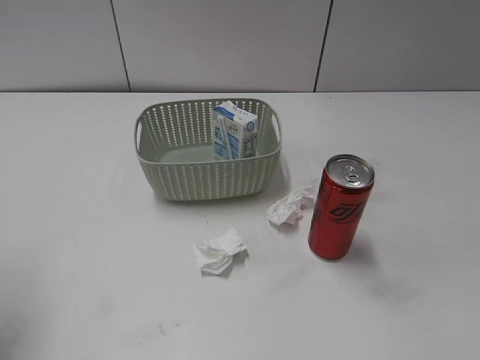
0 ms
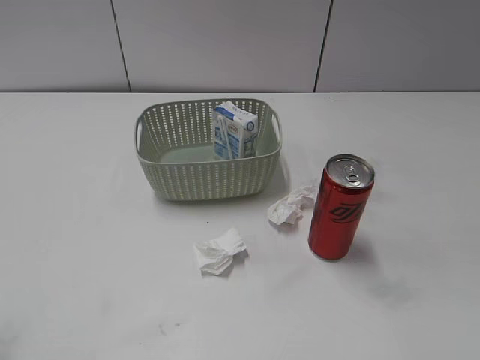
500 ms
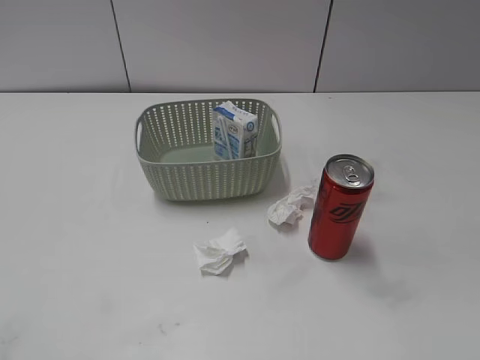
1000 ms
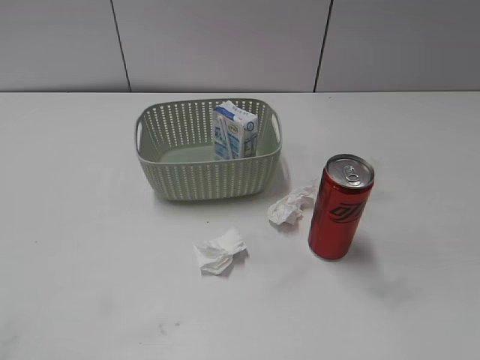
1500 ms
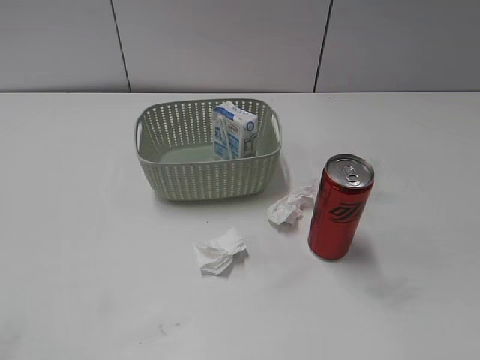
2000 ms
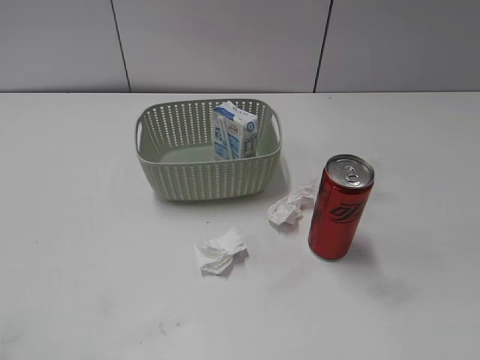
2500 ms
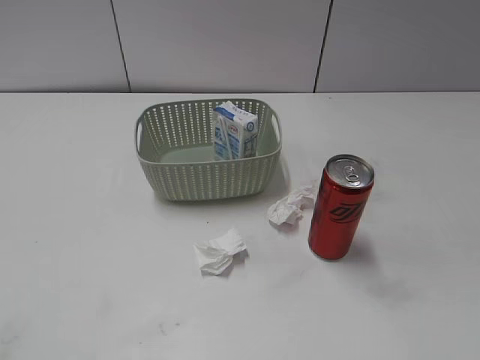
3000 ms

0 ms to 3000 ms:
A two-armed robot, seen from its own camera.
0 ms to 1500 ms: The left gripper moves backward, about 20 cm.
1500 ms to 3000 ms: The two grippers keep their place.

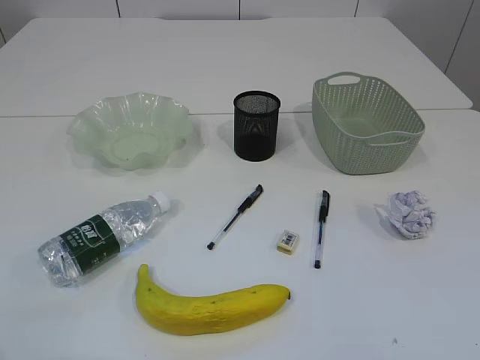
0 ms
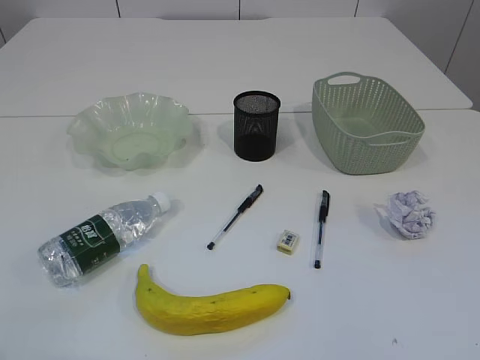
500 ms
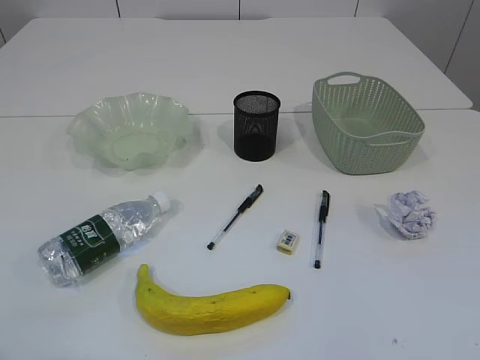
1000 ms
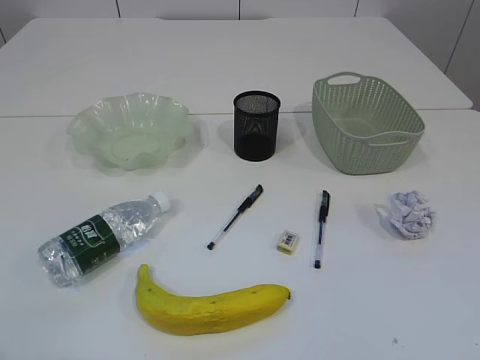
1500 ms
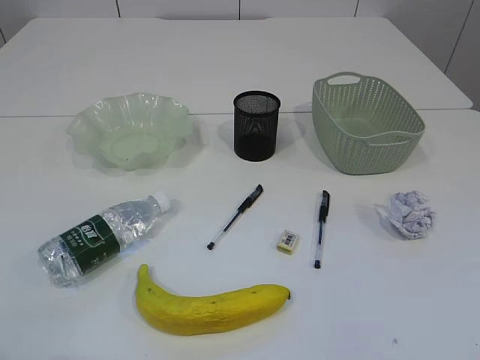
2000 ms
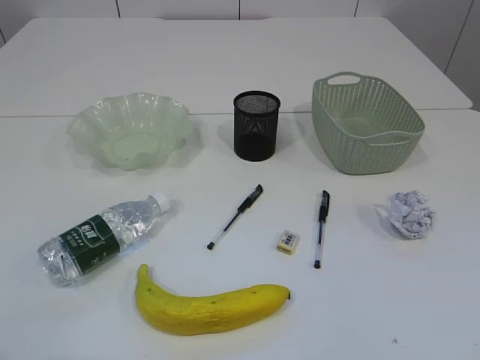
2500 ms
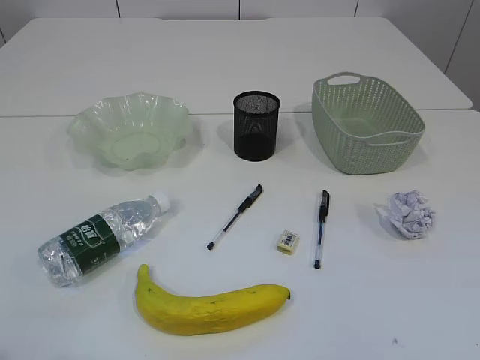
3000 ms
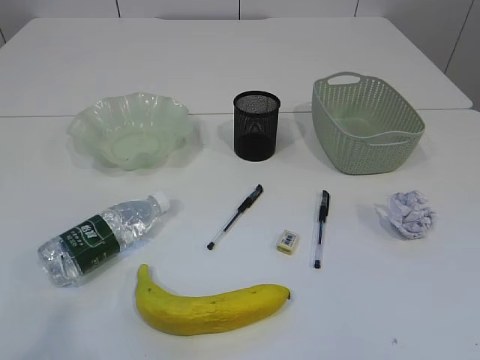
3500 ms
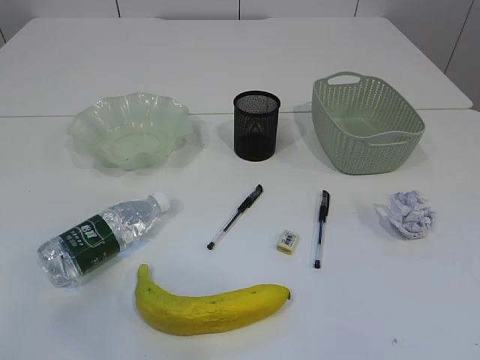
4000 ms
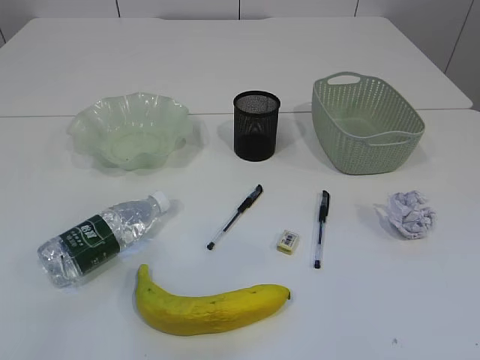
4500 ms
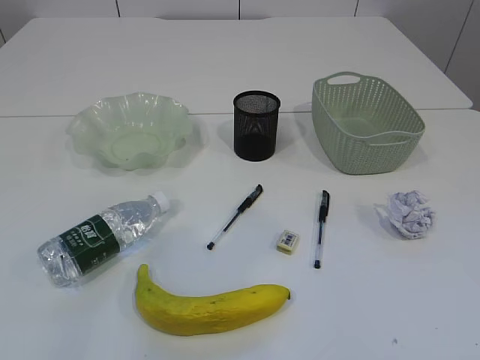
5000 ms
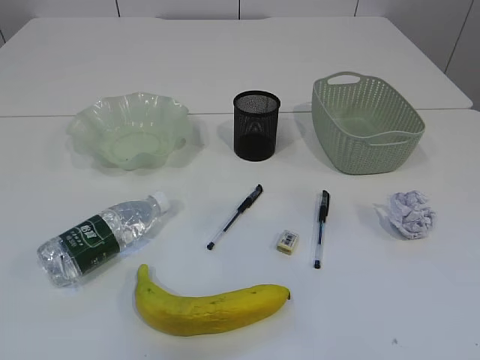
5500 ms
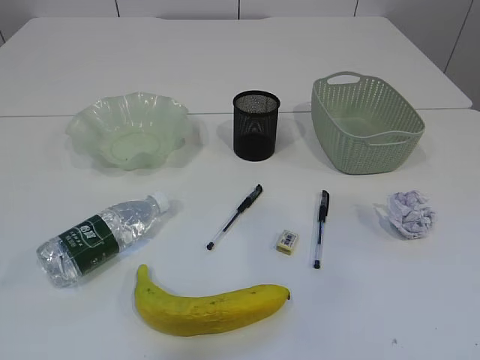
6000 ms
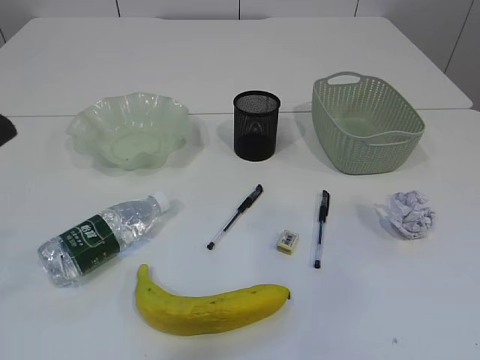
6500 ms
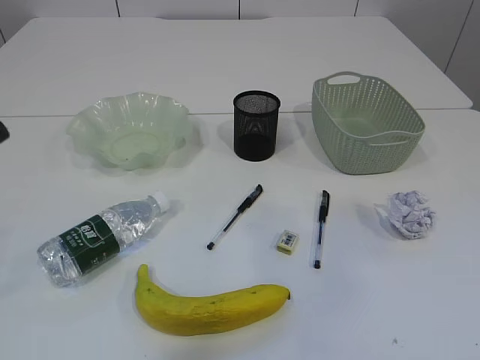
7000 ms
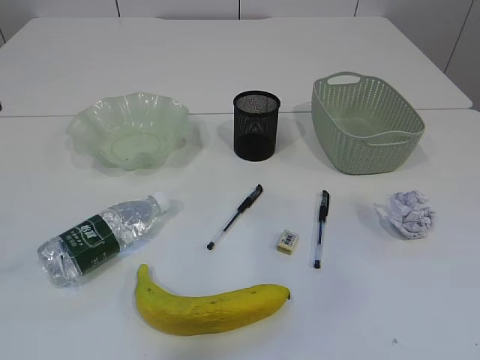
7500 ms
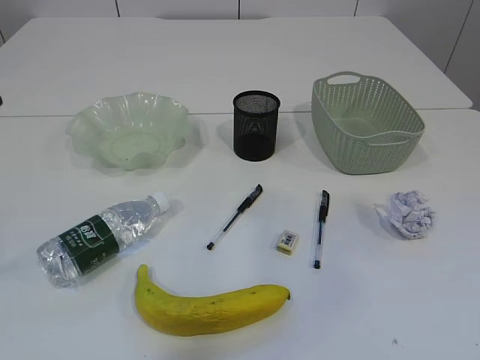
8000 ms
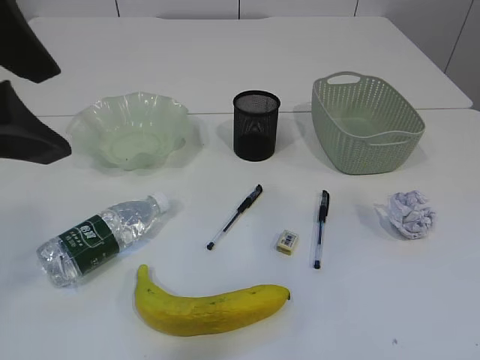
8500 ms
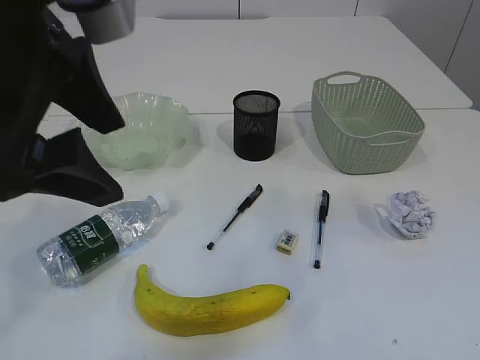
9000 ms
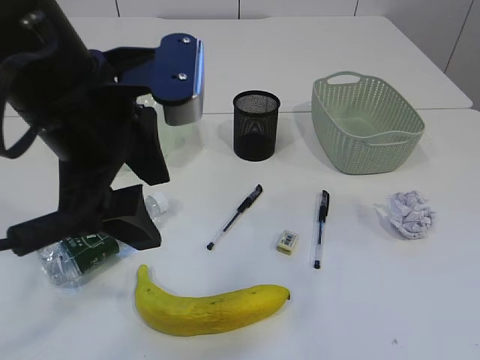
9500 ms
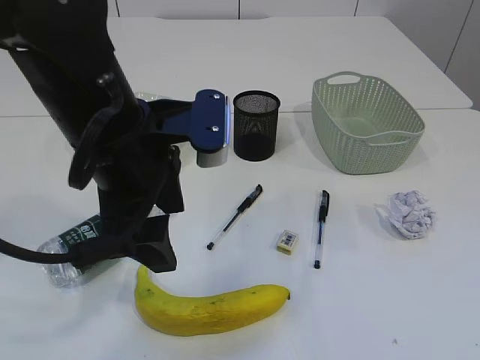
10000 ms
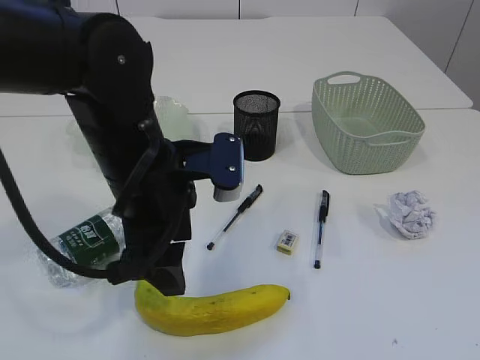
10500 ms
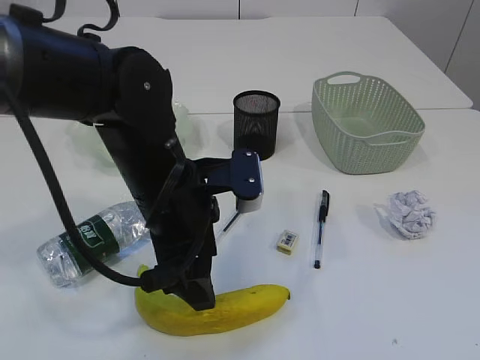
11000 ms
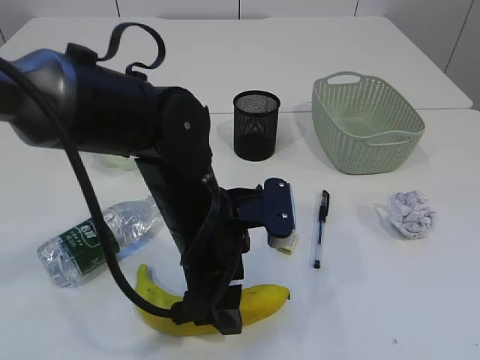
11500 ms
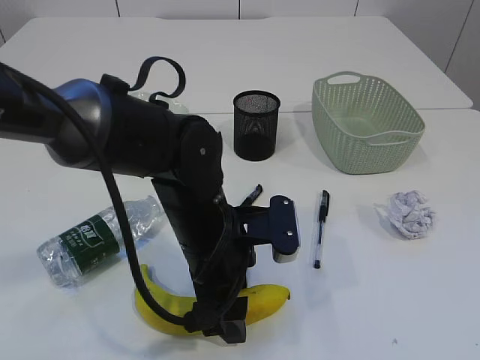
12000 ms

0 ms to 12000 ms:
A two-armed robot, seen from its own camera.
8000 ms to 10000 ms: The left gripper moves downward, forward and to the right, roughly 20 cm.
10000 ms to 12000 ms: The left gripper moves downward and to the right, some 15 cm.

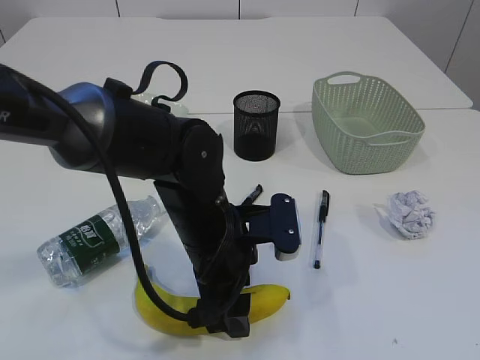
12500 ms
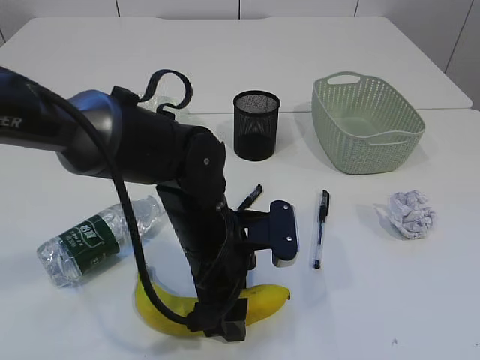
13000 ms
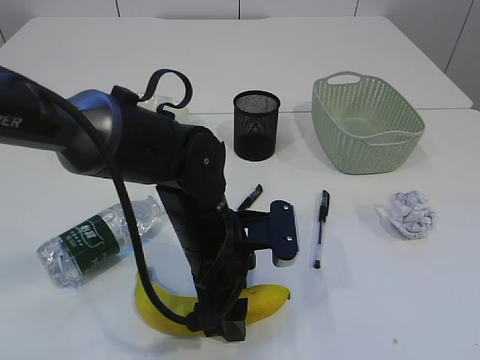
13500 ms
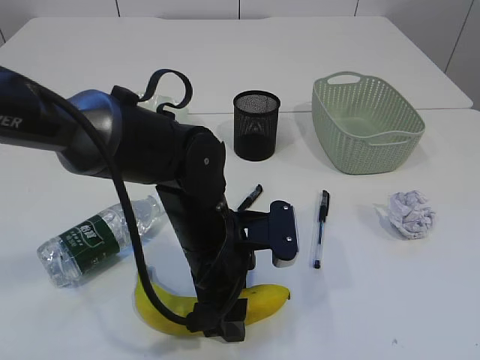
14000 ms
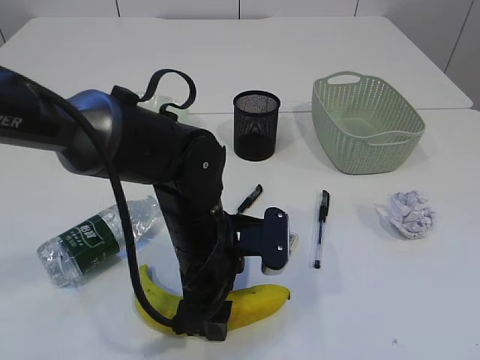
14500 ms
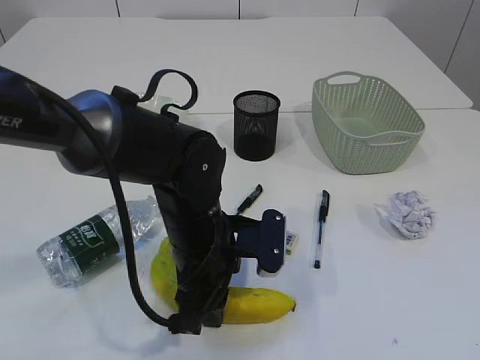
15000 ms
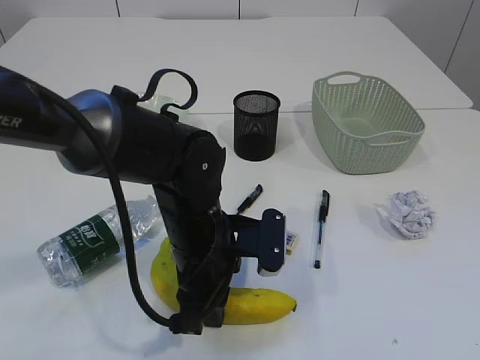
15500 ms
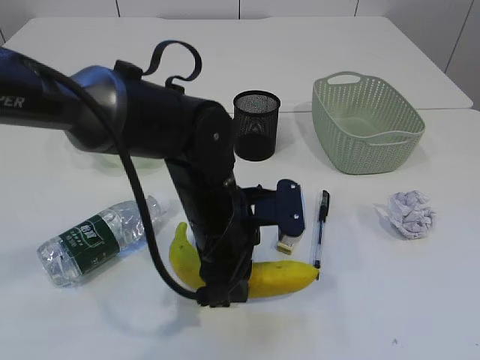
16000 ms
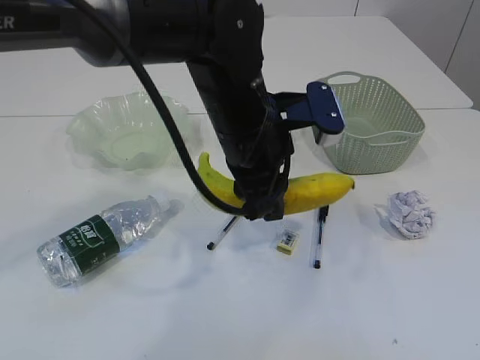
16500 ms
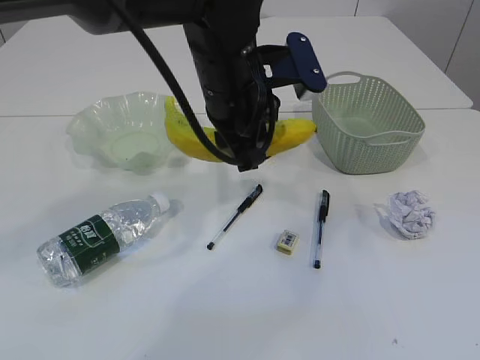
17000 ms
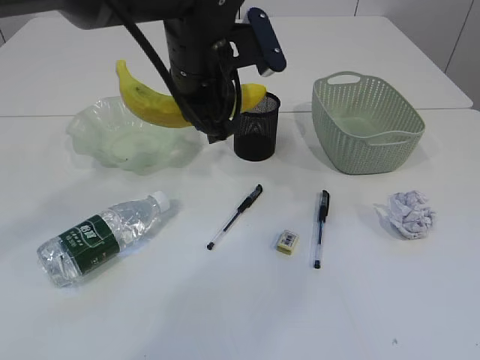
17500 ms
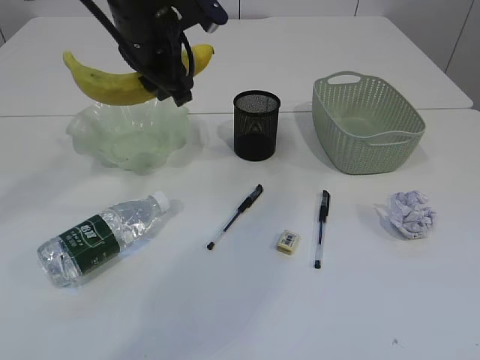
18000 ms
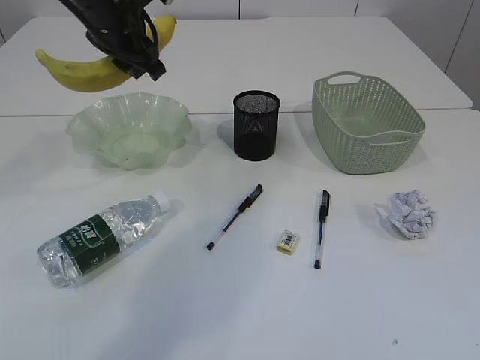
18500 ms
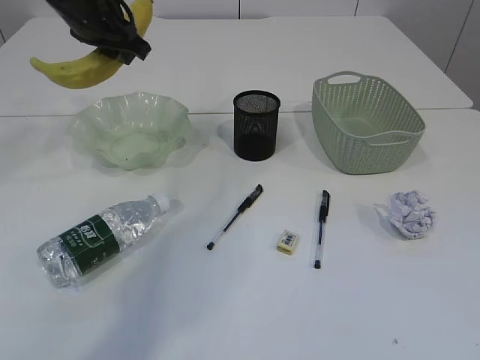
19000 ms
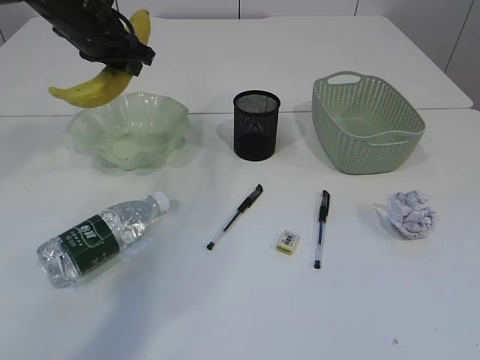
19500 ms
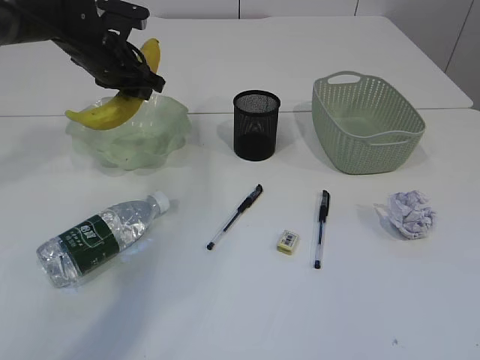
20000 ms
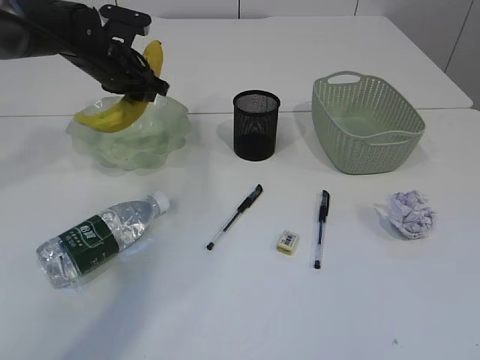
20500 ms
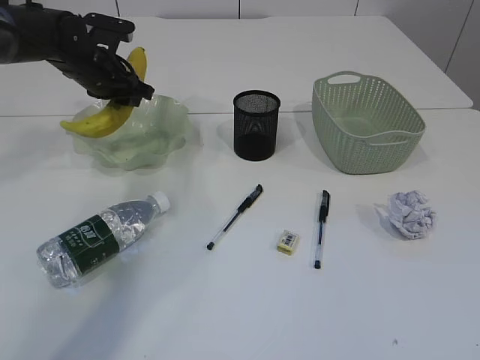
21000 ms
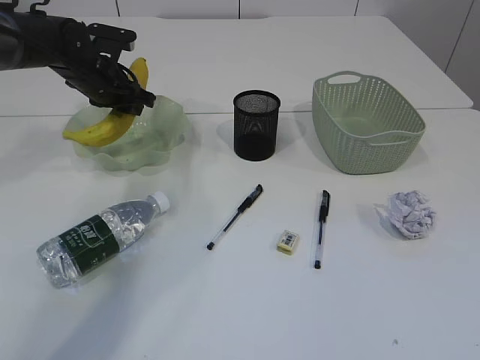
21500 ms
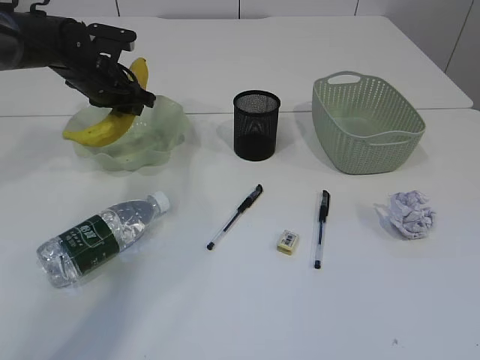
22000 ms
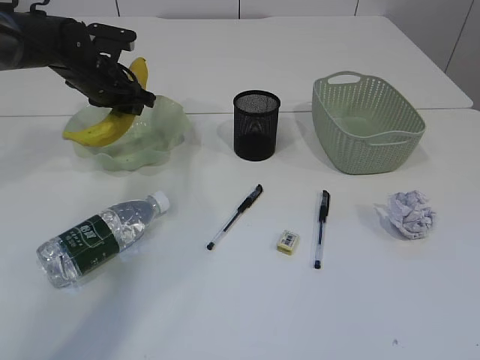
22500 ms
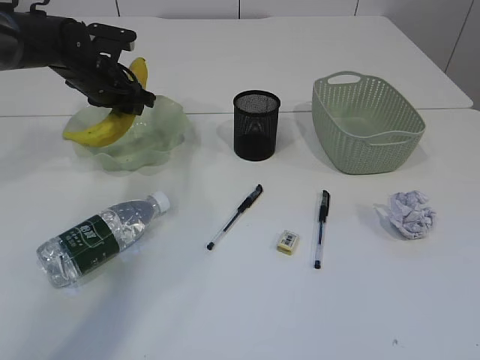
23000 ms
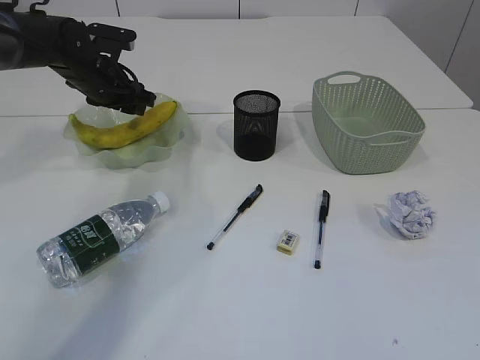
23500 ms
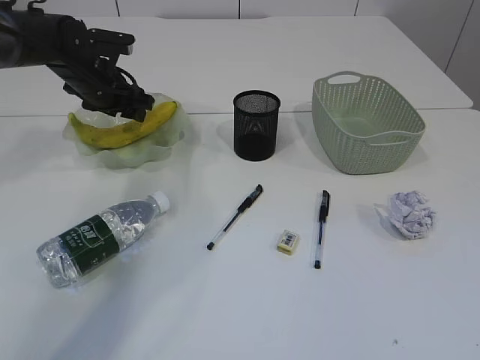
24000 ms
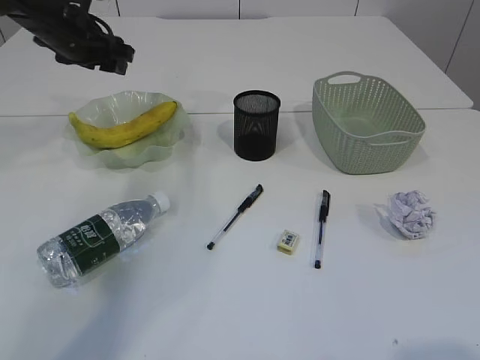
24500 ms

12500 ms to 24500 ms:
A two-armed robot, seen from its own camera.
12500 ms to 14500 ms: The grippers stay close to where they were, moving slightly.
14500 ms to 16500 ms: The left gripper shifts roughly 10 cm upward, and closes its fingers.
16500 ms to 18500 ms: The left gripper is displaced to the left, forward and upward by some 20 cm.
18500 ms to 20500 ms: The left gripper heads downward and forward, covering some 10 cm.
20500 ms to 22500 ms: There are only small adjustments of the grippers.
22500 ms to 24500 ms: The left gripper moves upward, approximately 5 cm, and opens its fingers.
